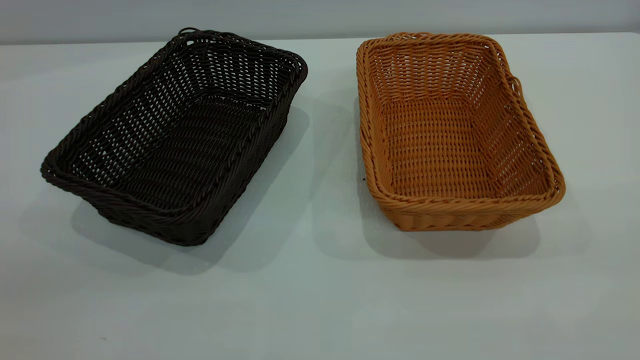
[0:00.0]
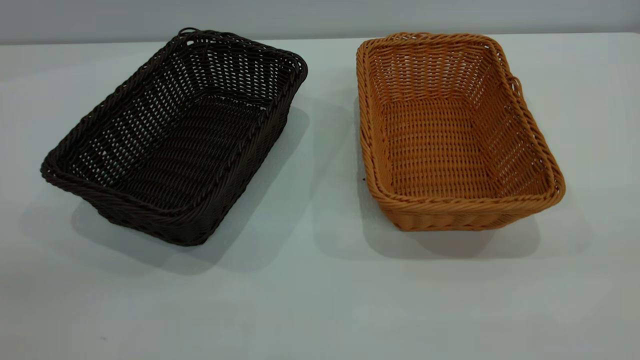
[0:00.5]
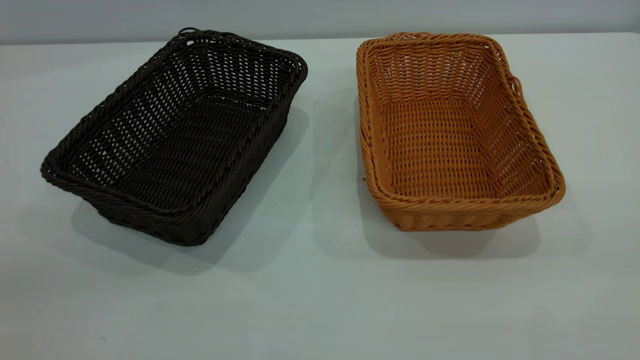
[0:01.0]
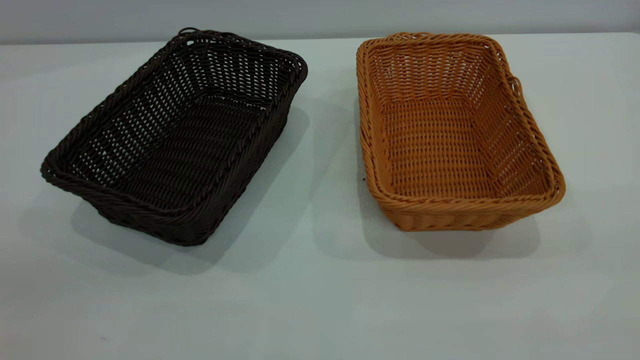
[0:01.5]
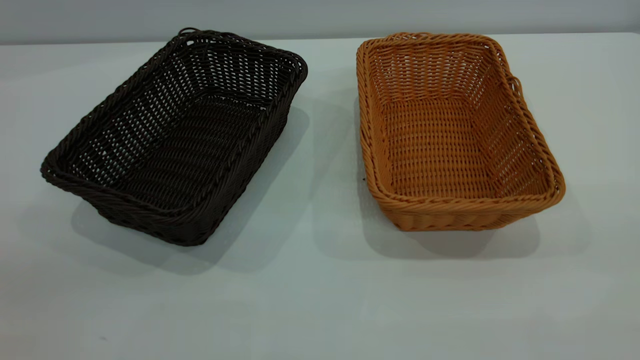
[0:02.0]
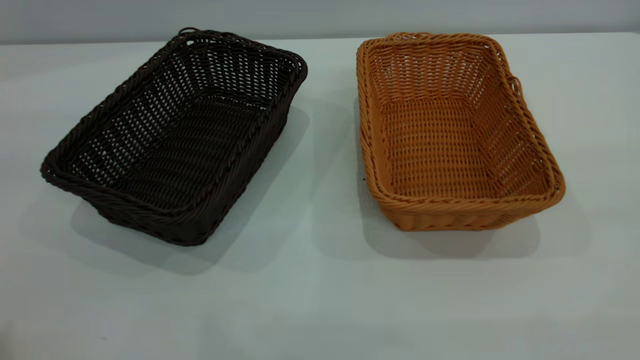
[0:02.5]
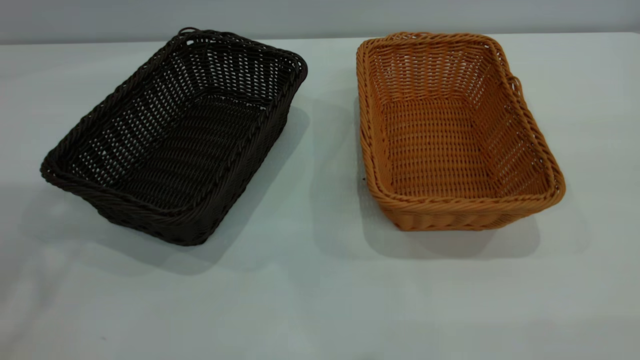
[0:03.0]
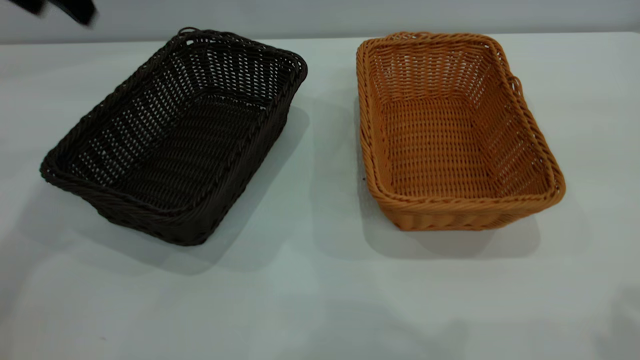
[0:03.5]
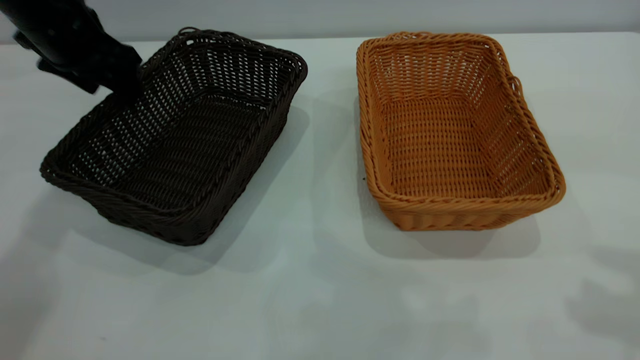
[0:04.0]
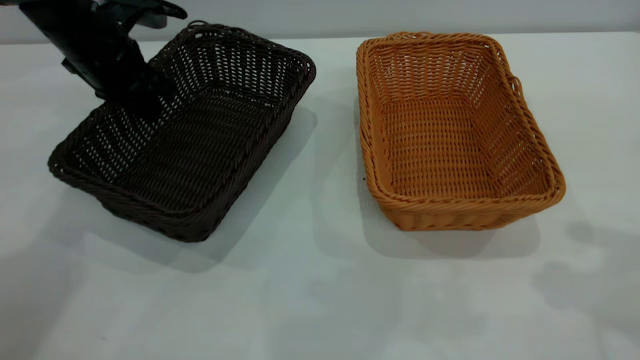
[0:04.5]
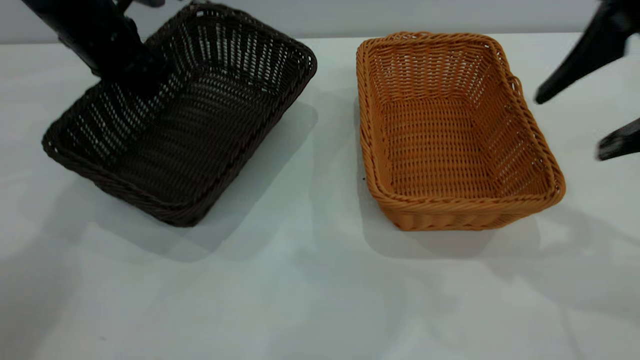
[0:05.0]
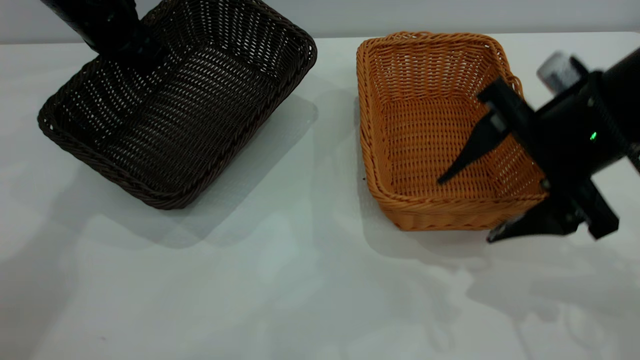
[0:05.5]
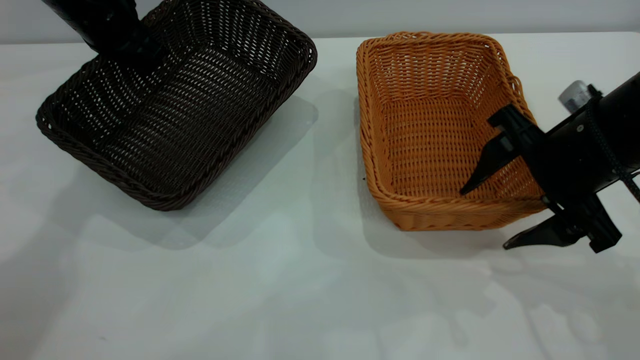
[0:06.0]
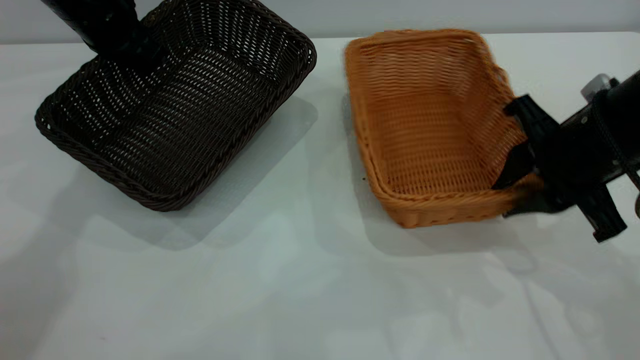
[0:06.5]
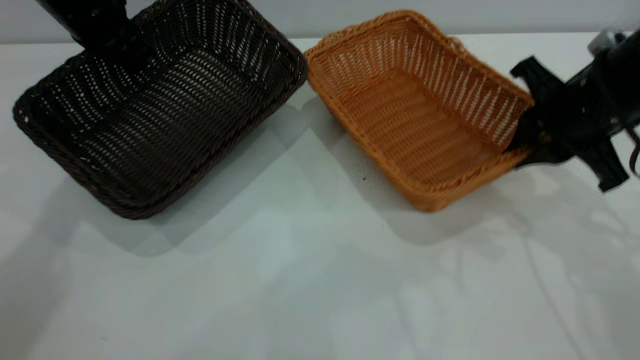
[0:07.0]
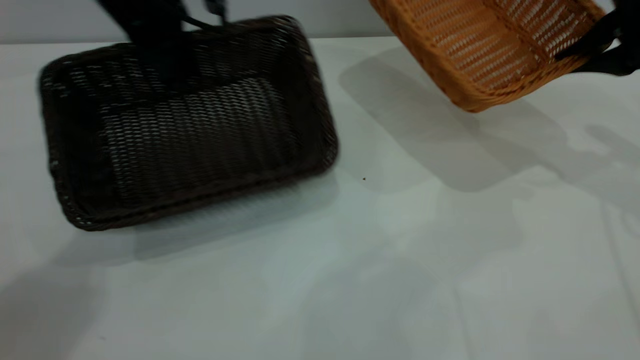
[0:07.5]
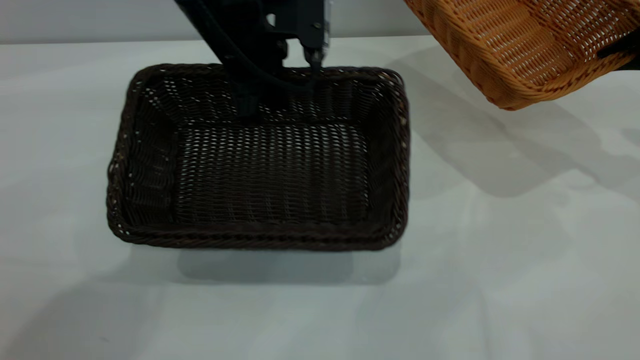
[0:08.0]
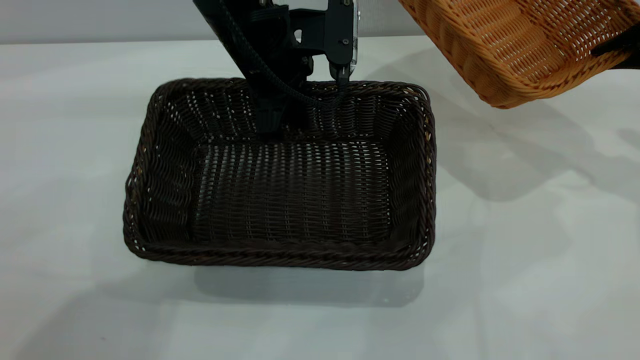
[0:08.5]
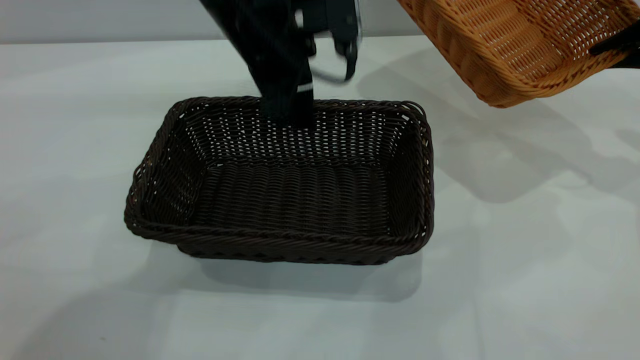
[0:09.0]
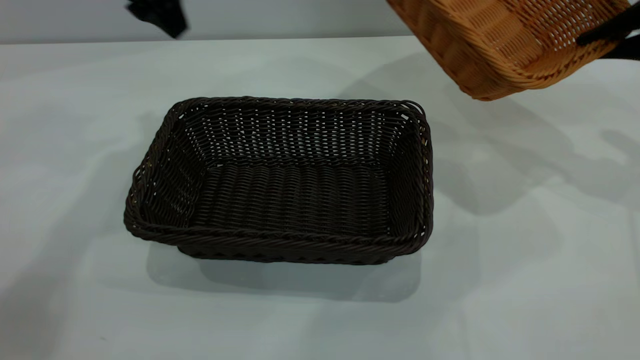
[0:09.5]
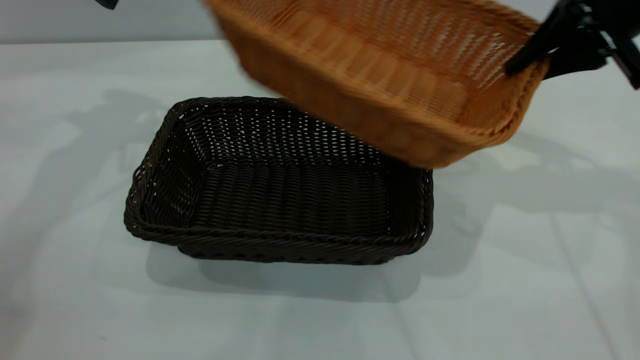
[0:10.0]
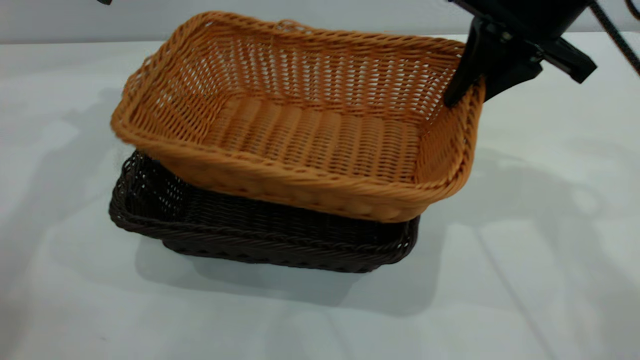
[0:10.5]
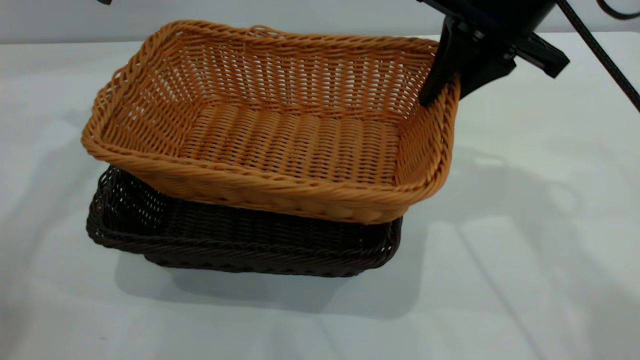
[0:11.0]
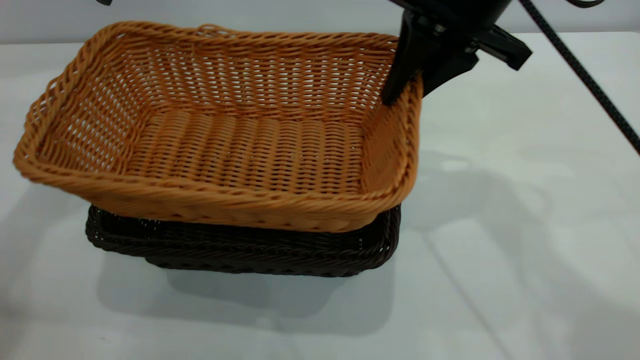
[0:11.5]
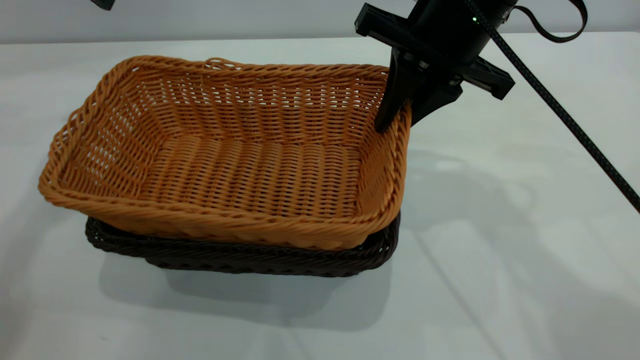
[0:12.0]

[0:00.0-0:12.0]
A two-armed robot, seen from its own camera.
Task of the whole recording: the left gripper grasp the black basket and place it in the center of the table, the right gripper grasp the brown basket and place it inside the black one.
Step, 0:00.0 to 0:07.5: Pick up the light basket with the right gripper.
Step, 0:08.0 to 0:09.0: Move the dark basket to the center of view.
0:00.0 to 0:02.0: Both grippers stay about where they are.
0:02.0 to 0:04.0: The left gripper shifts roughly 50 cm forward and downward.
0:04.0 to 0:06.0: The right gripper travels downward and forward by roughly 20 cm. Meanwhile the left gripper closes up.
0:06.0 to 0:08.0: The right gripper moves to the right and forward, some 20 cm, and closes up, while the left gripper heads to the right, covering roughly 15 cm.
0:08.0 to 0:10.0: The right gripper moves to the left, about 10 cm, while the left gripper heads to the left and upward, covering about 25 cm, and opens up.
0:10.0 to 0:12.0: The right gripper is displaced to the left by approximately 15 cm.

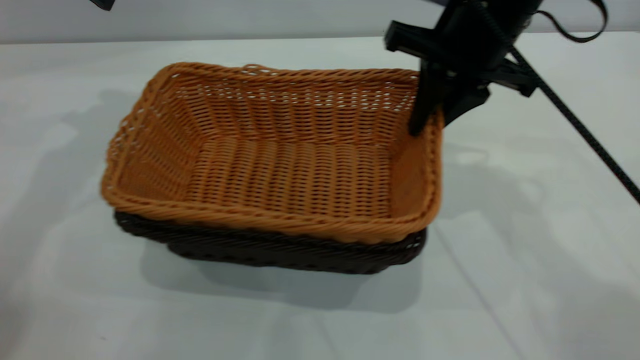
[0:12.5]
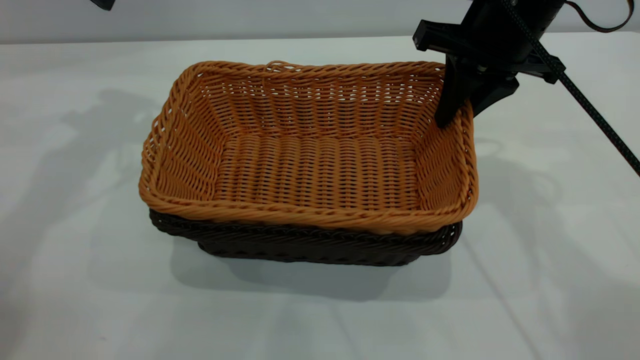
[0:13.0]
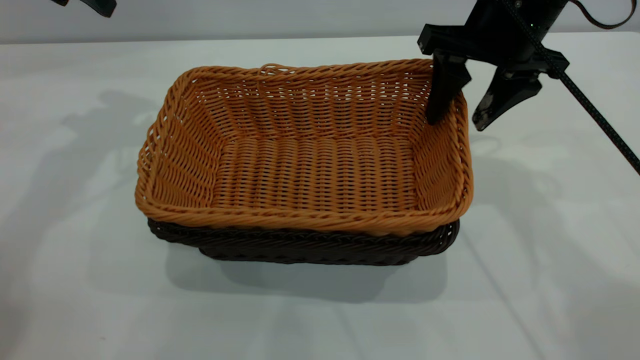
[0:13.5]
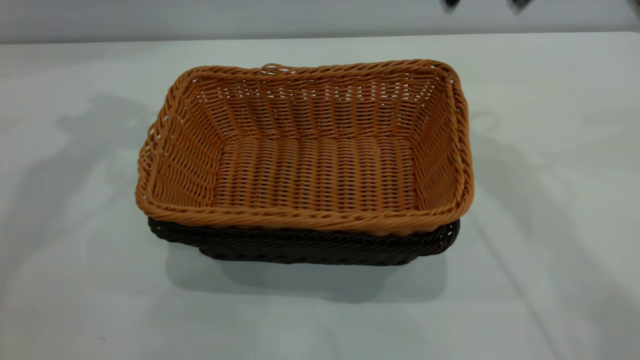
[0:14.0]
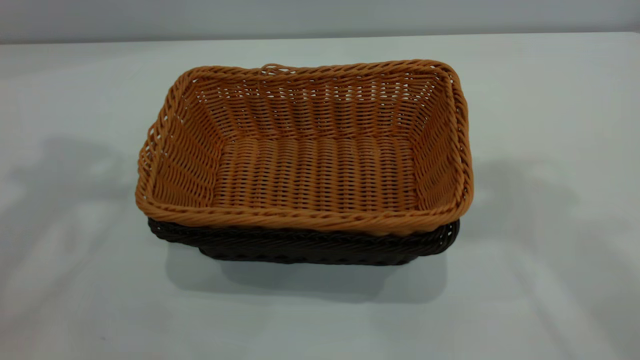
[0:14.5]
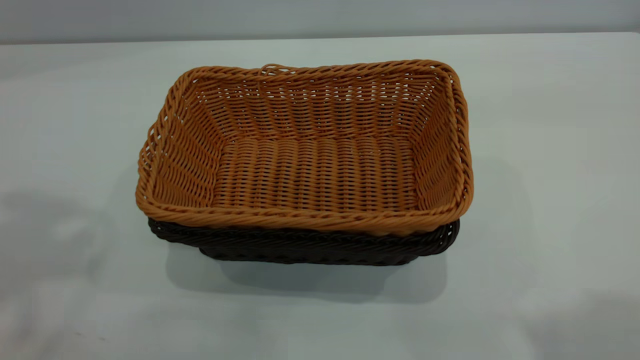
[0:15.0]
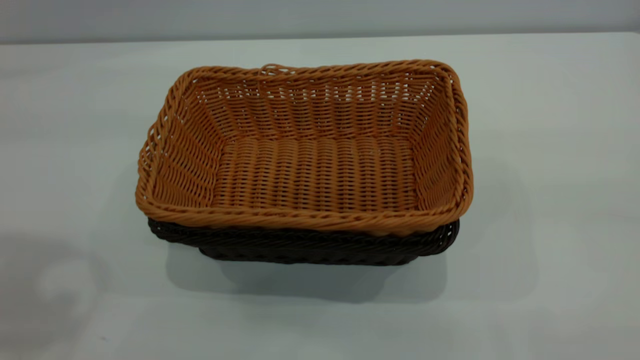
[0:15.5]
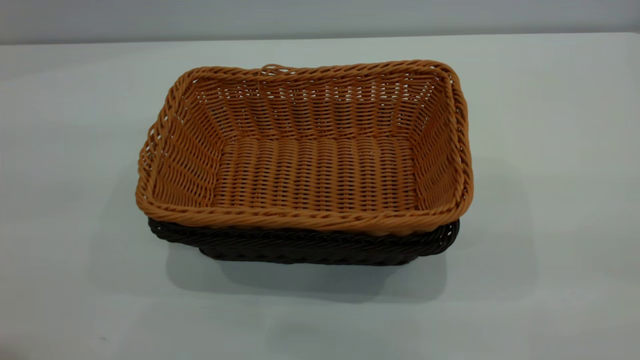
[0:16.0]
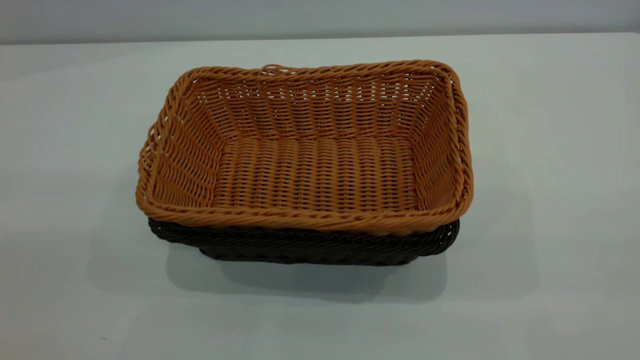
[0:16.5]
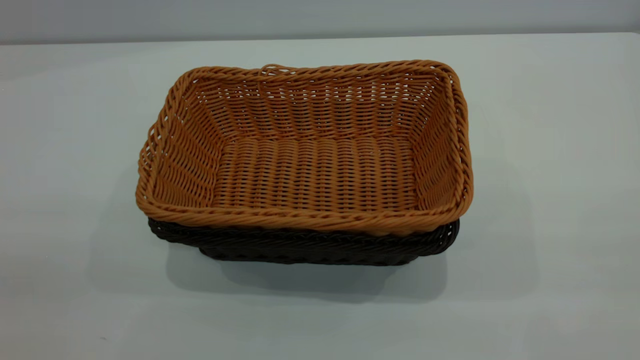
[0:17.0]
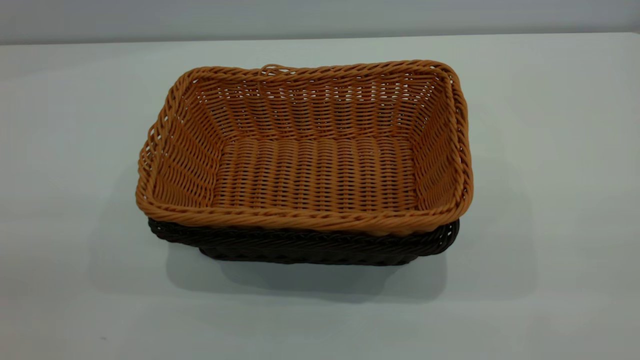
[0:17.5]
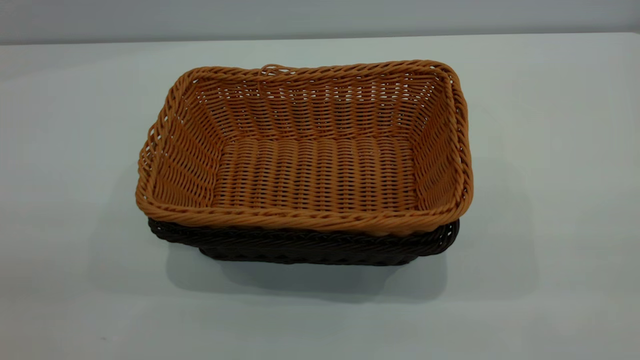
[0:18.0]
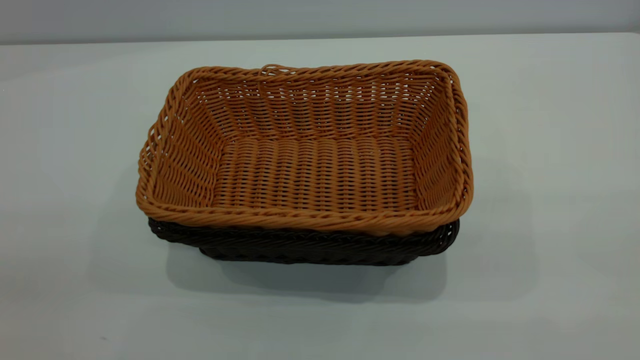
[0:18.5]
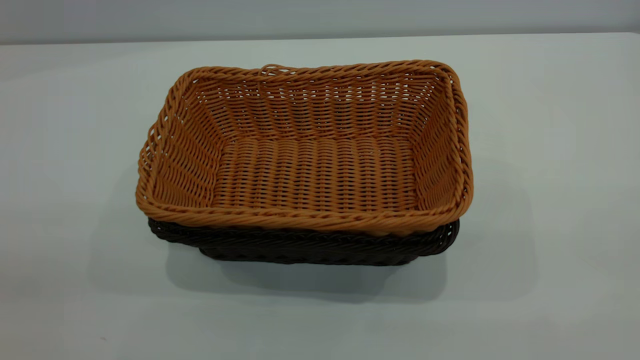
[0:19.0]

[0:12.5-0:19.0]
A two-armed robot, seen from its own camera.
Task of the whole recording: the left gripper grasp the black basket and place it in the center of the table, the right gripper grasp the brown basket and place it inside the black one.
0:12.5 to 0:14.5: The left gripper shifts about 25 cm upward and backward. The right gripper shifts approximately 30 cm upward, and opens up.
